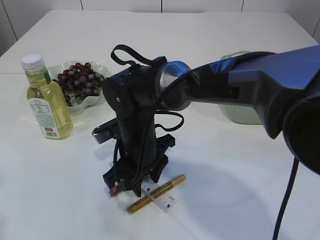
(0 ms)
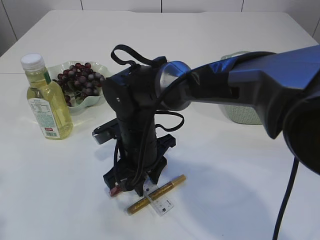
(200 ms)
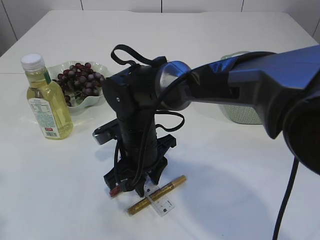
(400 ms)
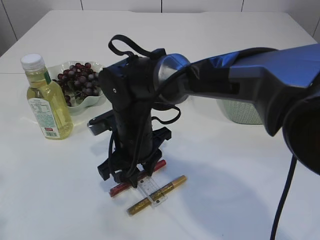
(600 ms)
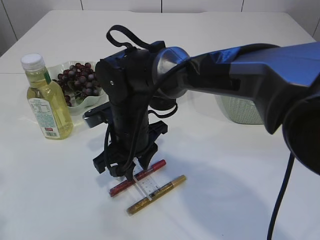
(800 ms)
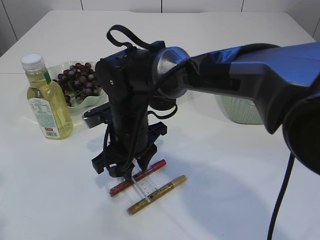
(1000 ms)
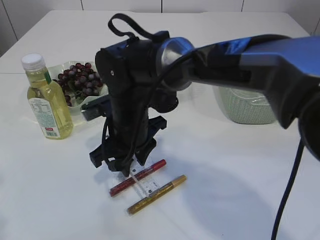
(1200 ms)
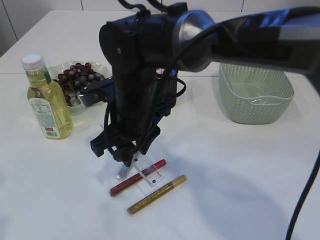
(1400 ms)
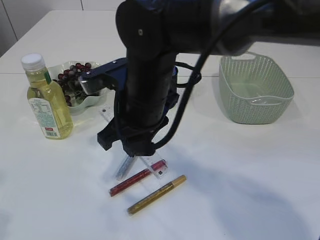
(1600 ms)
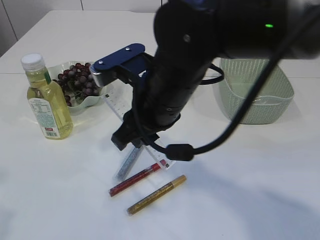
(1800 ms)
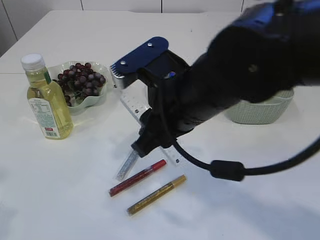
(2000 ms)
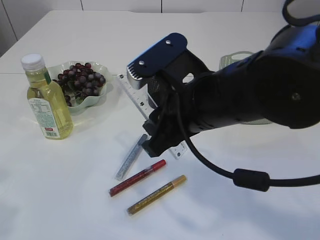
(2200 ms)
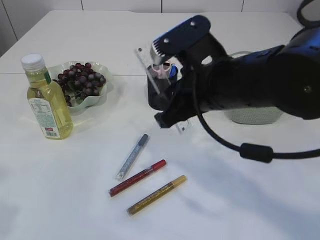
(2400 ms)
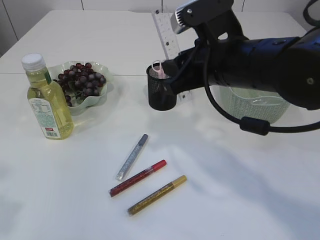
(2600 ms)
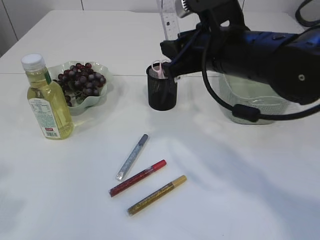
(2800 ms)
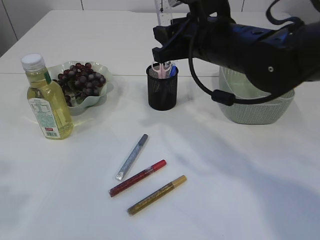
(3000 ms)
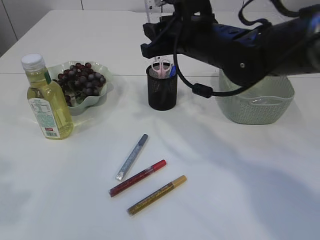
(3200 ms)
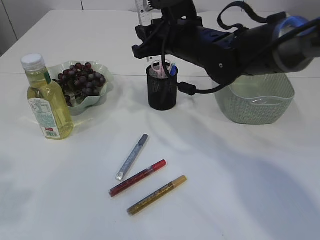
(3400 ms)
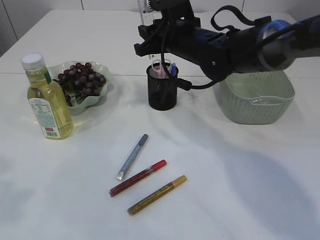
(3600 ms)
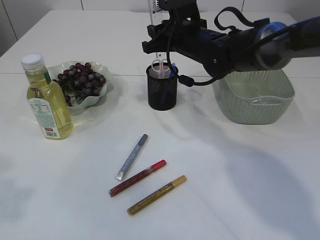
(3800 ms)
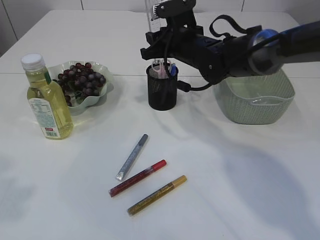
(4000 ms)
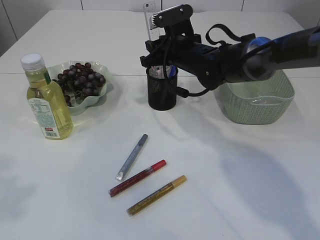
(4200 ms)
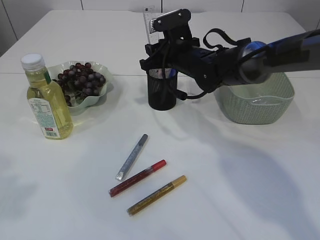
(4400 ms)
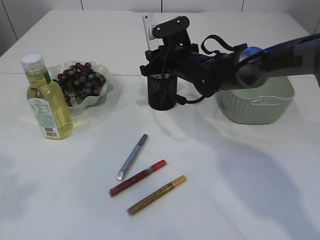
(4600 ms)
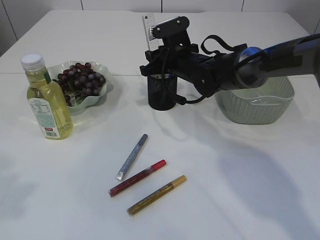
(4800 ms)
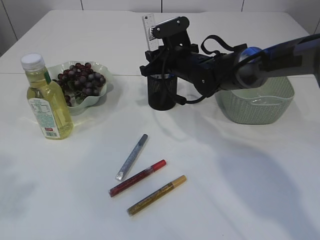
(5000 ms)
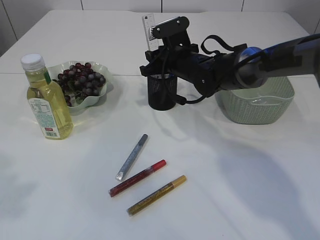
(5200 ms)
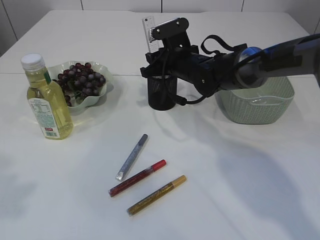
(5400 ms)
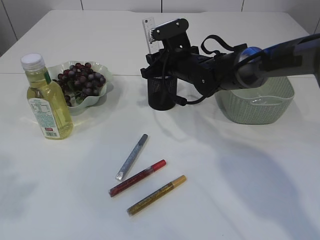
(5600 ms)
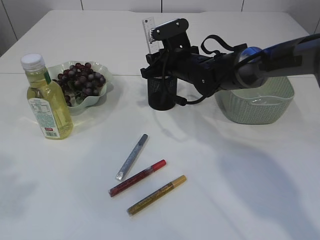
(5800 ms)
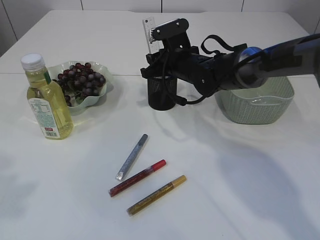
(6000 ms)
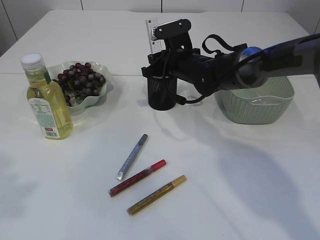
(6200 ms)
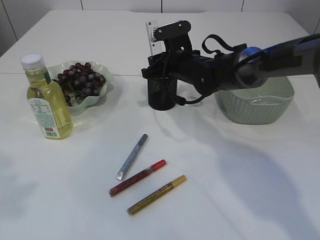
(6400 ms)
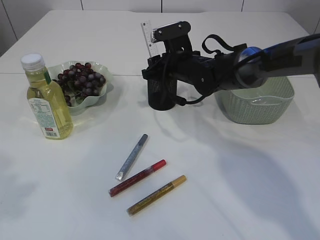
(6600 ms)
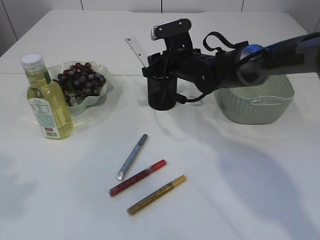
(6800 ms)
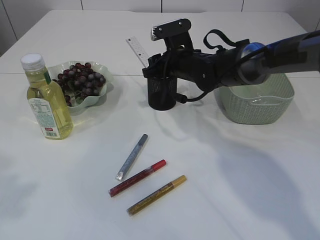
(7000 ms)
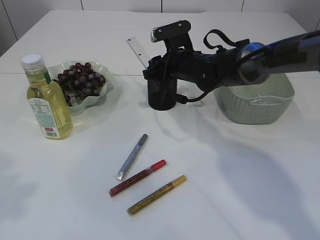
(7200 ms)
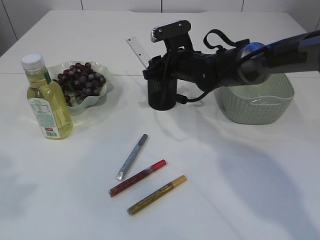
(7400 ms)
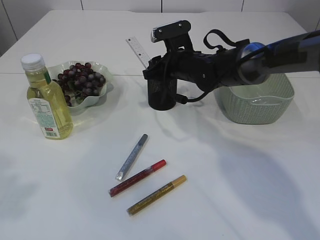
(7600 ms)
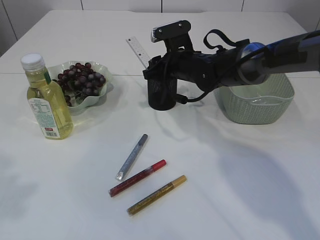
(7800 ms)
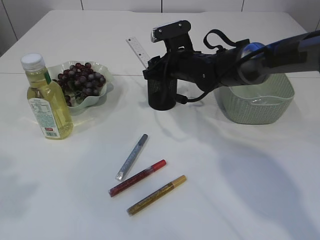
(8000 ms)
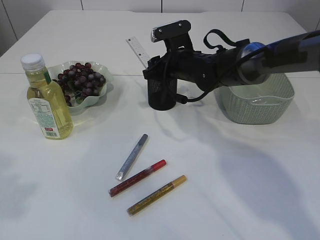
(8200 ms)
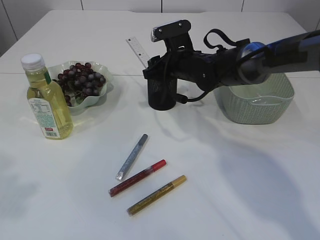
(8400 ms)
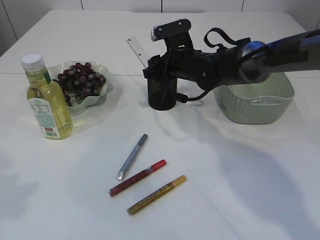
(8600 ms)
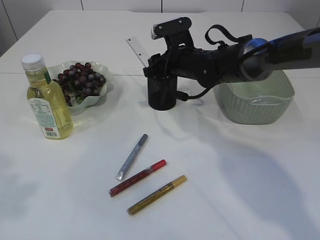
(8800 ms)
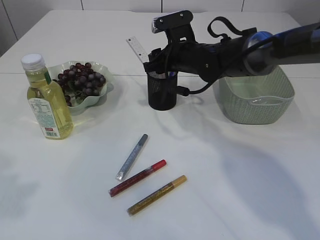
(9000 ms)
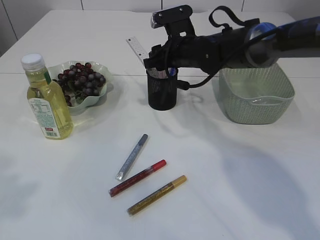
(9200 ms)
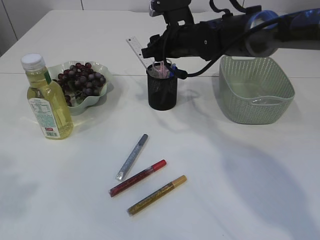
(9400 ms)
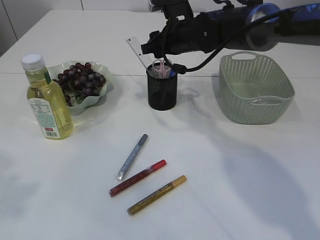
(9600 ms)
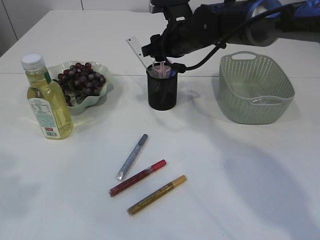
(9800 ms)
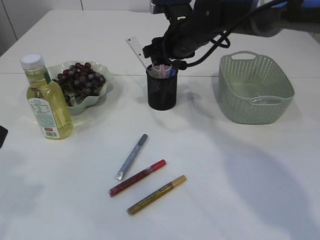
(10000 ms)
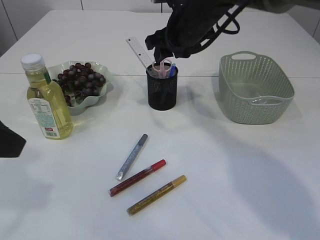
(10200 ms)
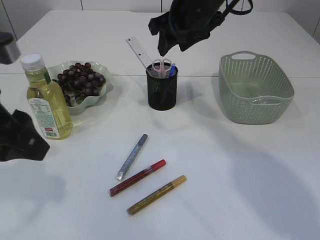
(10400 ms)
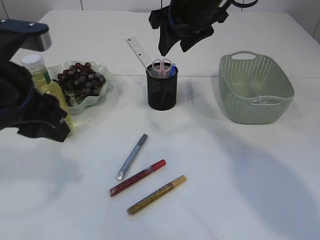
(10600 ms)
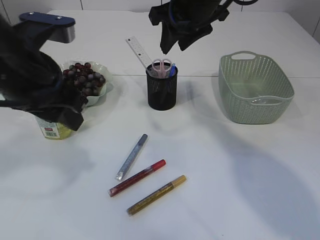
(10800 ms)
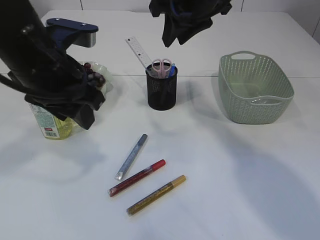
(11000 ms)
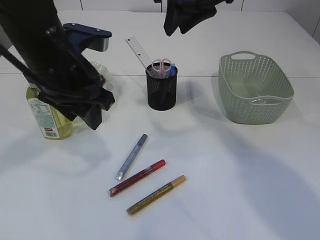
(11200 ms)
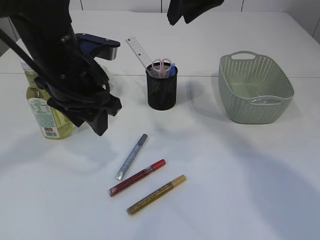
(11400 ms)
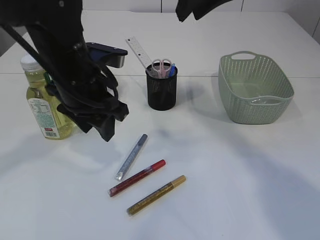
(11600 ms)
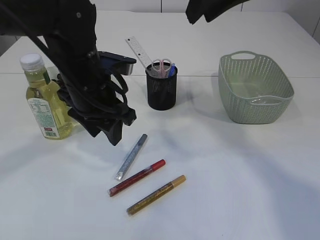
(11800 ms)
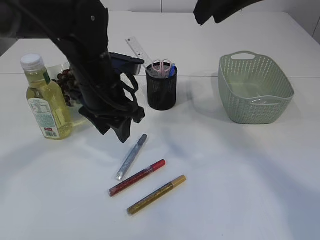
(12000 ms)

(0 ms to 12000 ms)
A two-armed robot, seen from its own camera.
Step, 2000 ms - 10600 ms: Place the ruler into the pen holder.
0 ms - 1600 ms: The right gripper goes about 10 cm upward.
1600 ms - 3000 ms: The right gripper travels to the right by some 10 cm.
3000 ms - 4400 ms: The right gripper is displaced forward and downward by roughly 15 cm.
4400 ms - 9000 ms: The grippers make only small movements.
9000 ms - 10400 ms: The left gripper goes approximately 10 cm forward and downward, while the right gripper travels upward by approximately 10 cm.
10400 ms - 12000 ms: The right gripper moves backward and upward, roughly 15 cm, and closes its fingers. Meanwhile the left gripper shifts some 20 cm forward, to the right and downward.

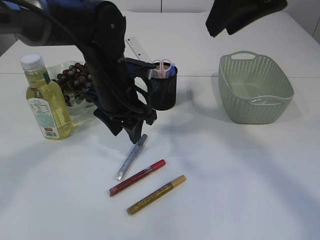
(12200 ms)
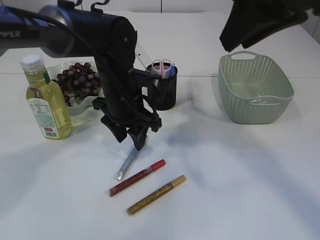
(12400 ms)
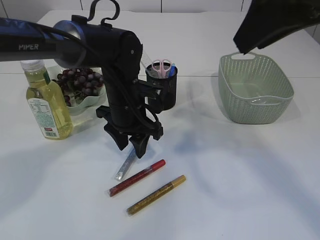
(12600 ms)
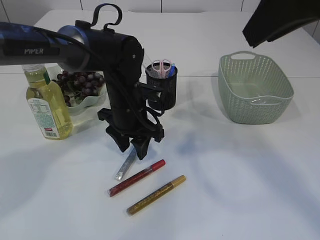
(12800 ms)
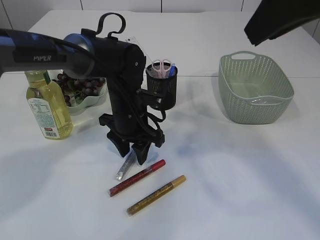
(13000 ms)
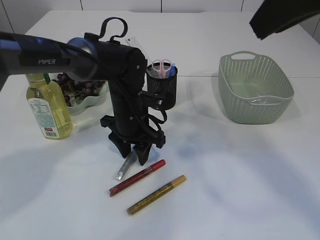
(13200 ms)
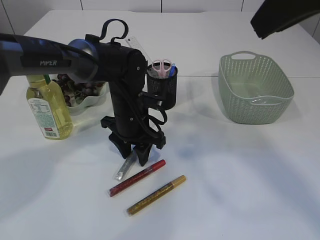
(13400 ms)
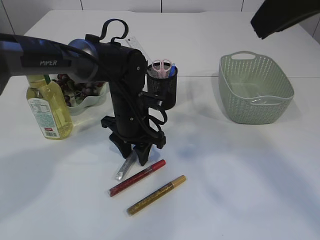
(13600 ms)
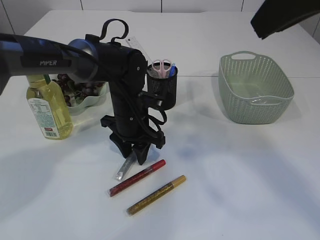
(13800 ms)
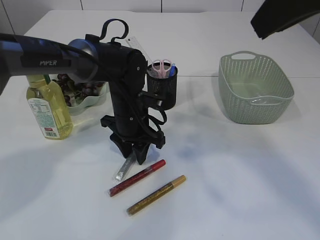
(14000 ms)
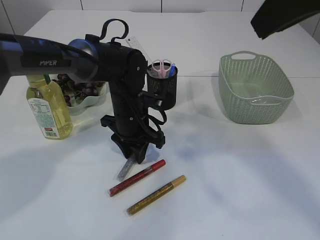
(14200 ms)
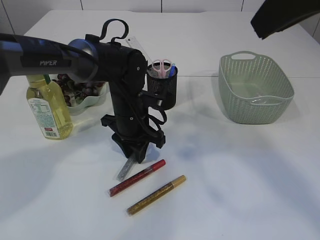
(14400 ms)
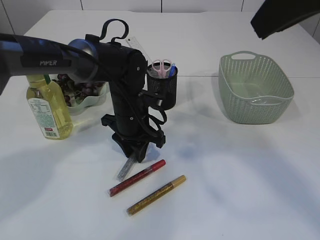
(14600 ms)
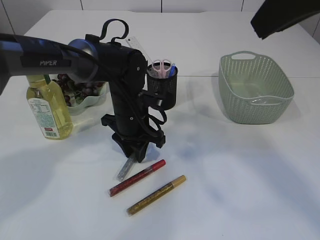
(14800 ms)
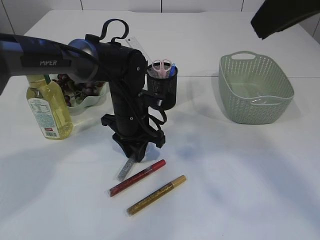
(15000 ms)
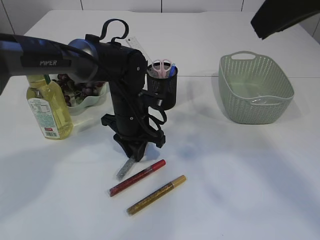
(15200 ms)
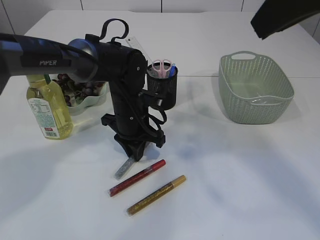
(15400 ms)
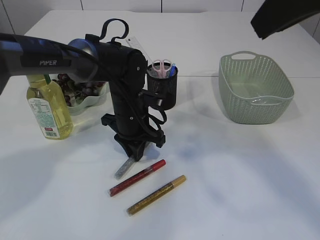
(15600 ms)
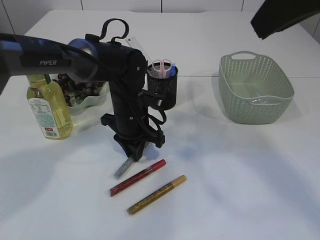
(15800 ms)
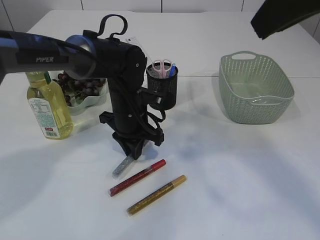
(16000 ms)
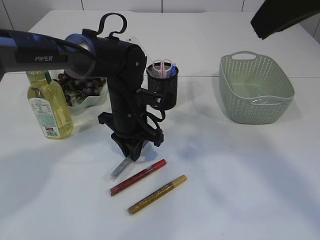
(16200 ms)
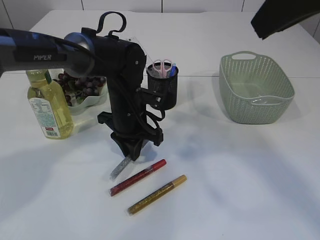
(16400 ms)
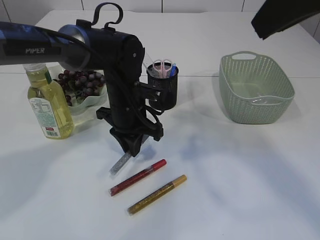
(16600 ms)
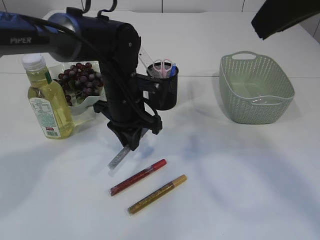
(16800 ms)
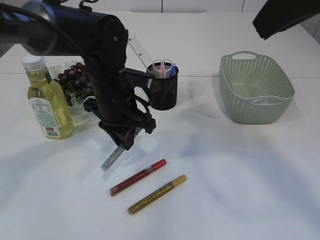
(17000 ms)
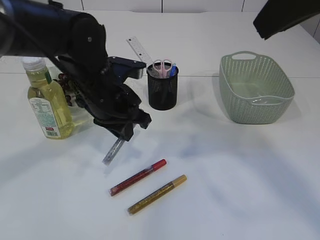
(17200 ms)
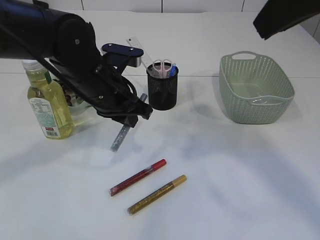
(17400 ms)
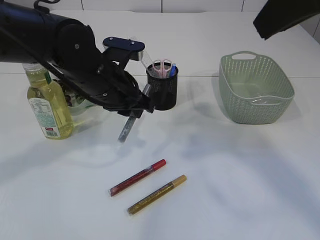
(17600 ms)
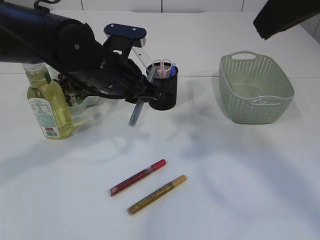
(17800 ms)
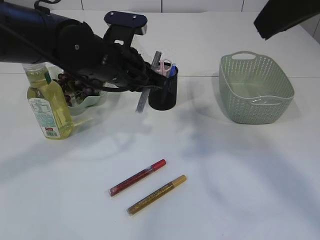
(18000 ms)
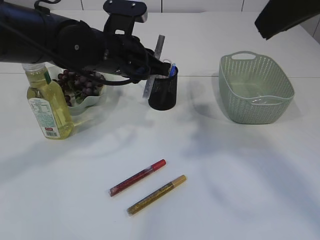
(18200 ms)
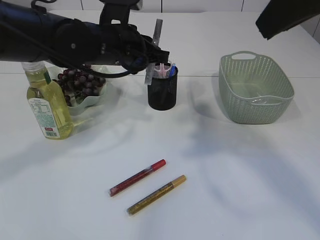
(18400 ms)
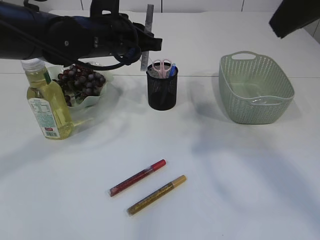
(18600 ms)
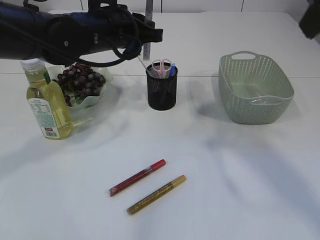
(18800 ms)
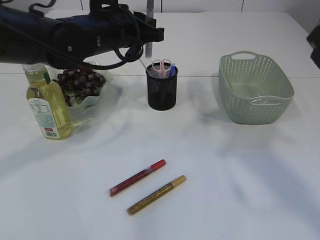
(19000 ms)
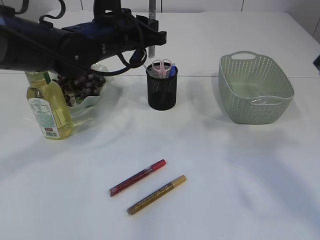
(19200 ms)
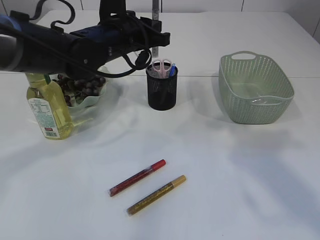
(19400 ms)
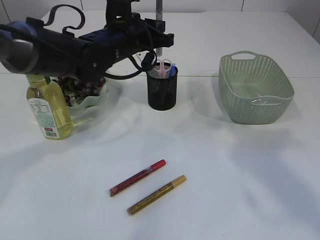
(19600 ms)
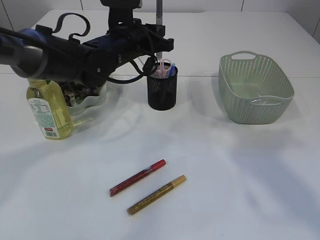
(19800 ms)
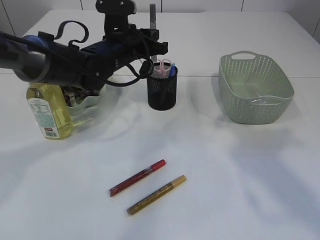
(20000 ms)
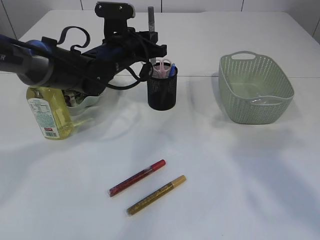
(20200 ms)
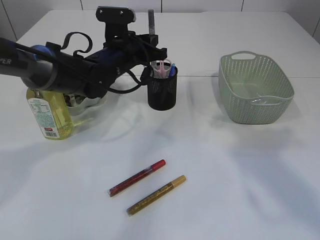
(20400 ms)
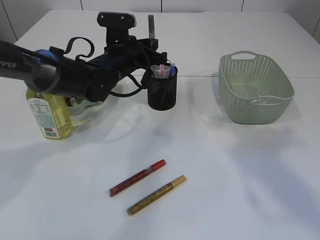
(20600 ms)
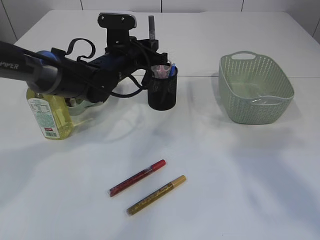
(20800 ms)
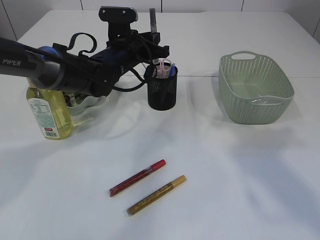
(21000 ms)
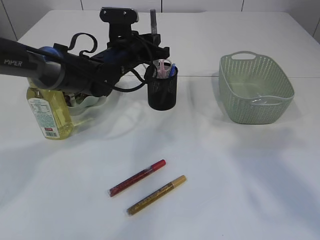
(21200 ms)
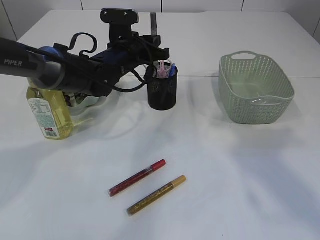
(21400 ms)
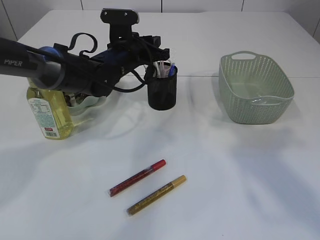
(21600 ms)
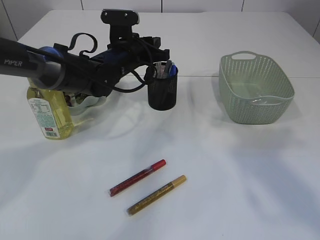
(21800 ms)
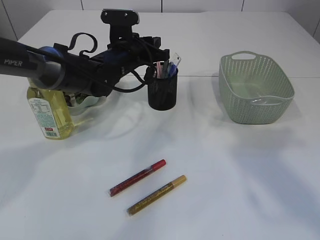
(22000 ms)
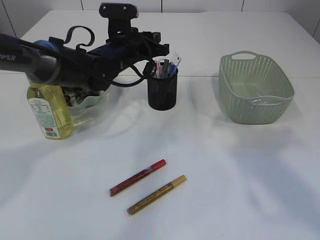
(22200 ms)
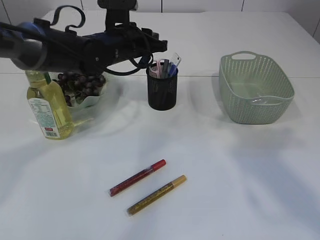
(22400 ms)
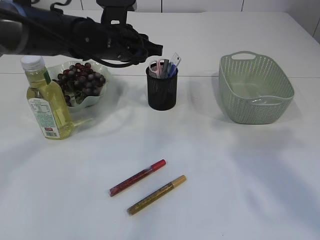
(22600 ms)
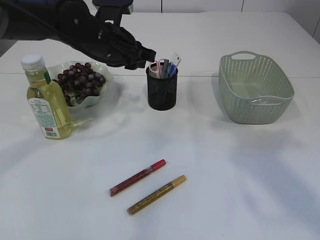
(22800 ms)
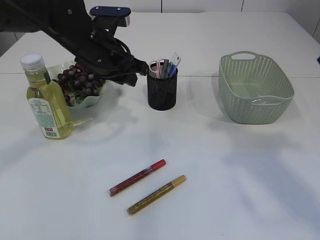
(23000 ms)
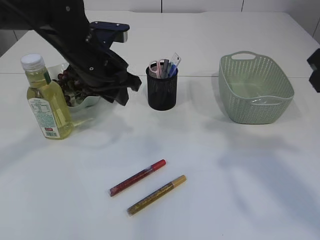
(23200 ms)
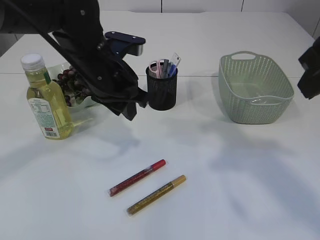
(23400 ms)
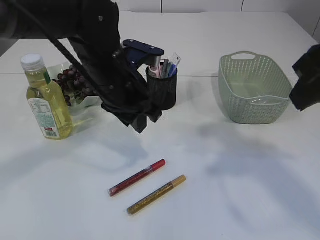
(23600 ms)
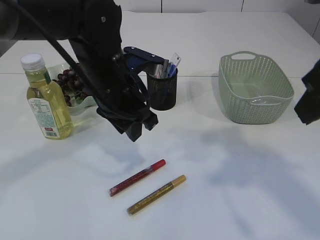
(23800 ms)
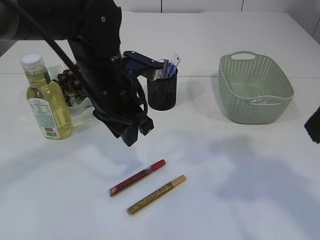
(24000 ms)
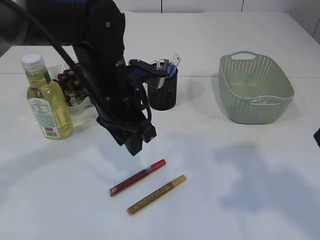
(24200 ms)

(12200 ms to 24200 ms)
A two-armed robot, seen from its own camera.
Step, 12200 ms - 17400 ms: pick up the silver glue.
Step, 17600 ms - 23000 ms: place the silver glue into the pen holder.
12200 ms - 13800 ms: The right gripper travels backward by approximately 5 cm, while the left gripper is displaced downward by about 10 cm.
13800 ms - 15200 ms: The left gripper closes.
15200 ms - 16600 ms: The grippers make only small movements.
16600 ms - 18200 ms: The left gripper goes about 10 cm upward.
18200 ms - 19800 ms: The left gripper moves forward, approximately 5 cm, while the right gripper is displaced downward and to the right by about 5 cm.
19800 ms - 21200 ms: There are only small adjustments of the grippers.
22600 ms - 24200 ms: The right gripper travels backward by about 5 cm, while the left gripper moves backward, some 10 cm.
